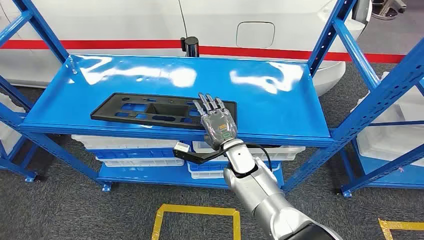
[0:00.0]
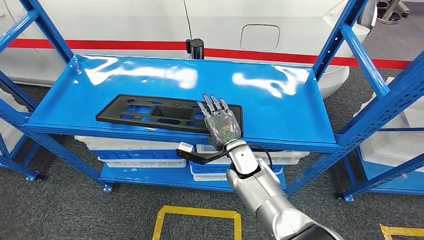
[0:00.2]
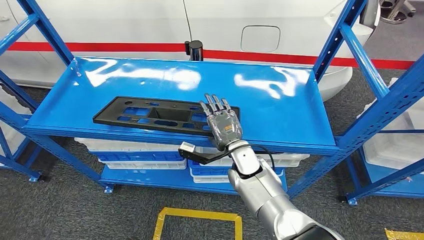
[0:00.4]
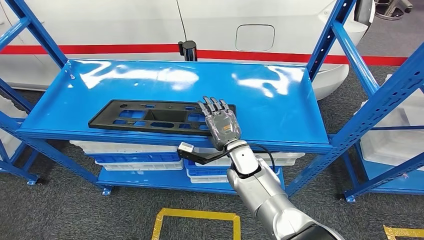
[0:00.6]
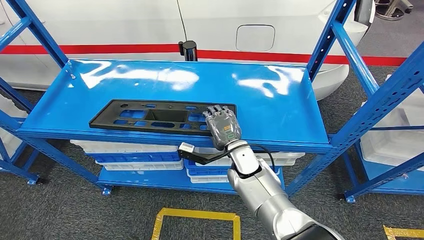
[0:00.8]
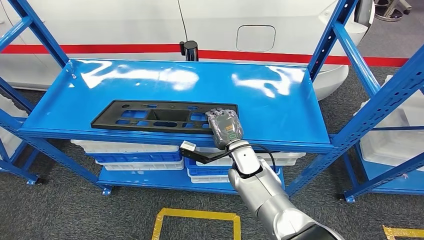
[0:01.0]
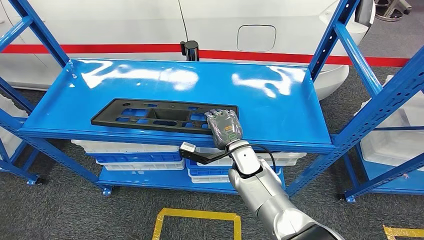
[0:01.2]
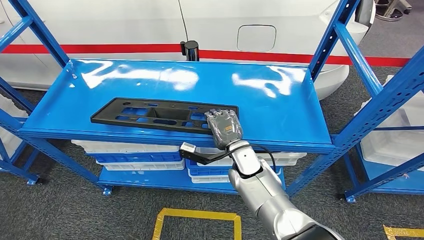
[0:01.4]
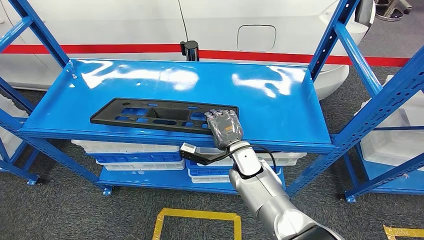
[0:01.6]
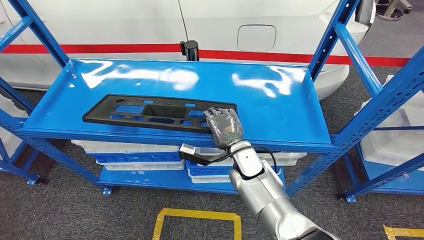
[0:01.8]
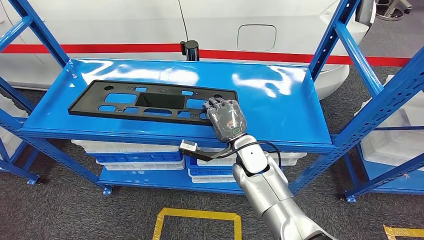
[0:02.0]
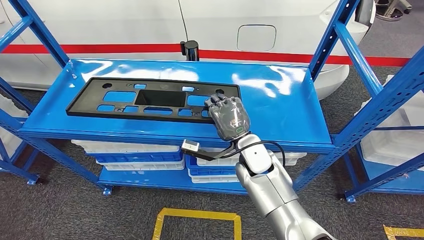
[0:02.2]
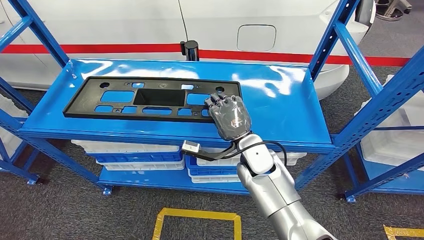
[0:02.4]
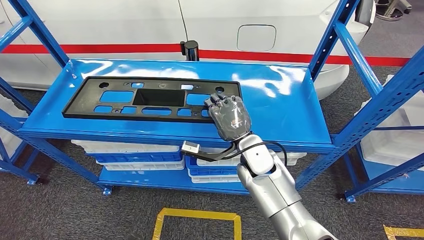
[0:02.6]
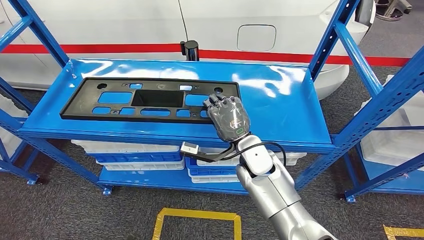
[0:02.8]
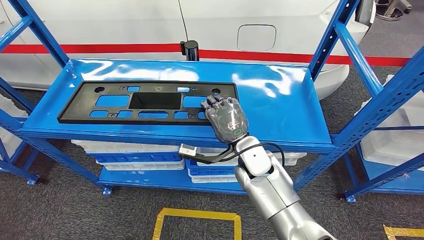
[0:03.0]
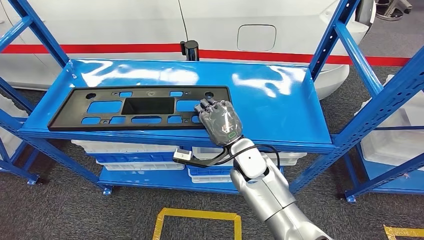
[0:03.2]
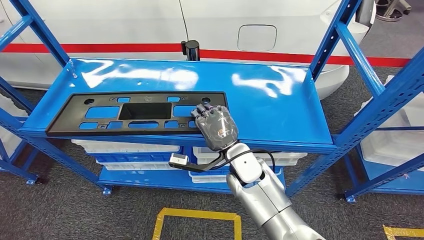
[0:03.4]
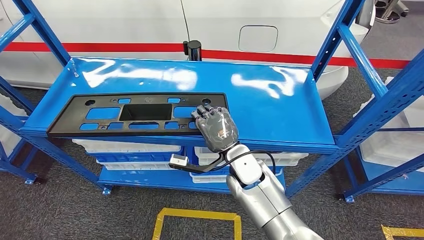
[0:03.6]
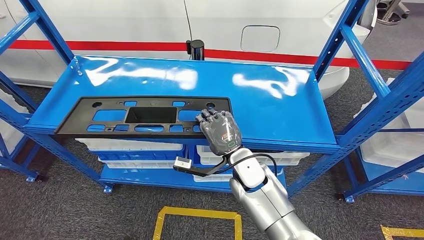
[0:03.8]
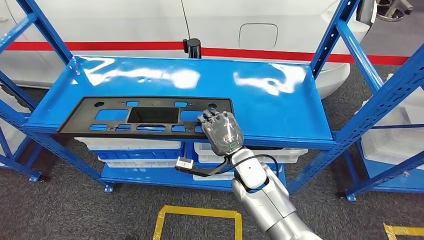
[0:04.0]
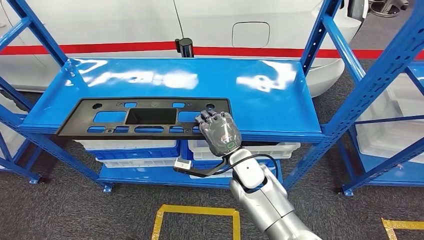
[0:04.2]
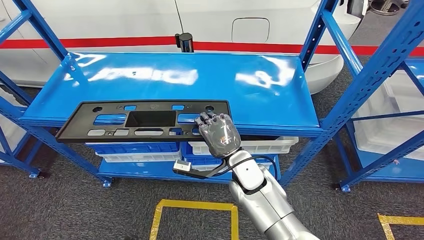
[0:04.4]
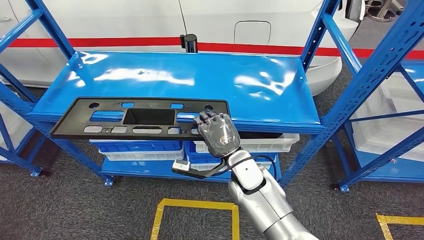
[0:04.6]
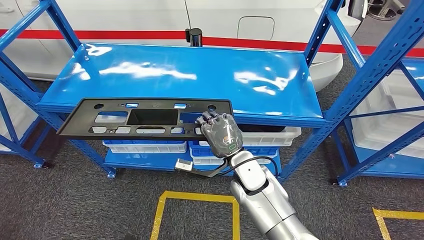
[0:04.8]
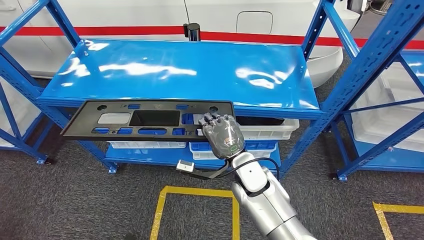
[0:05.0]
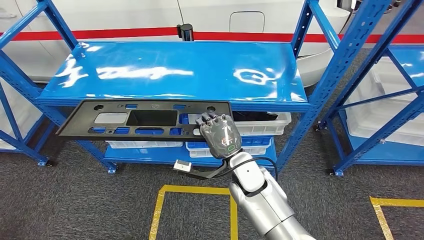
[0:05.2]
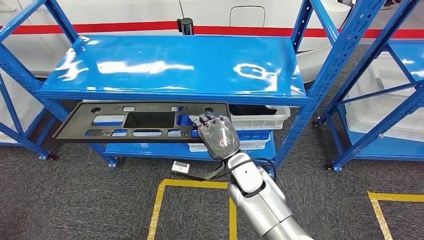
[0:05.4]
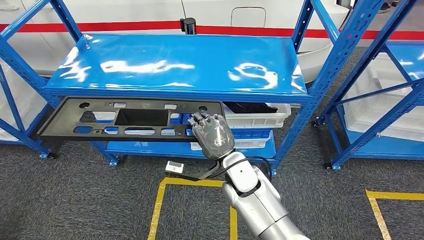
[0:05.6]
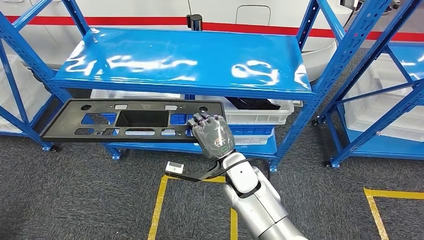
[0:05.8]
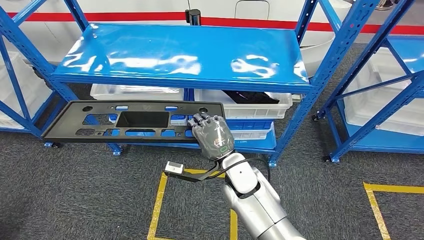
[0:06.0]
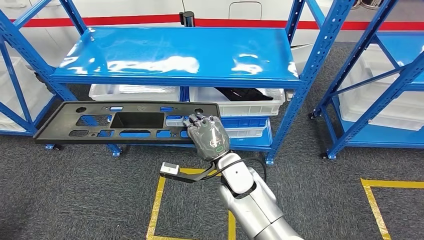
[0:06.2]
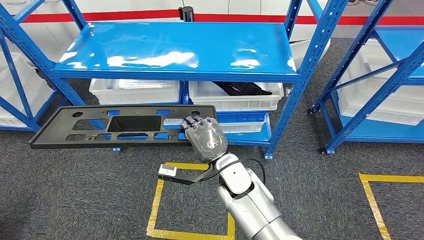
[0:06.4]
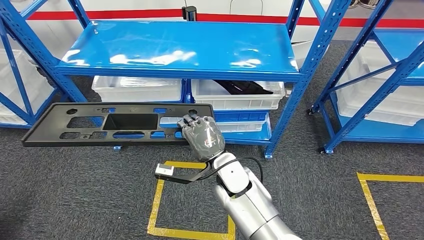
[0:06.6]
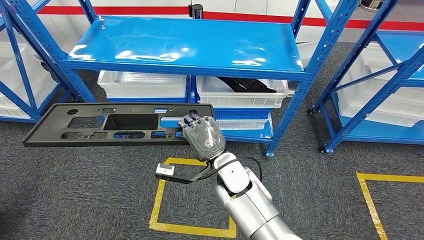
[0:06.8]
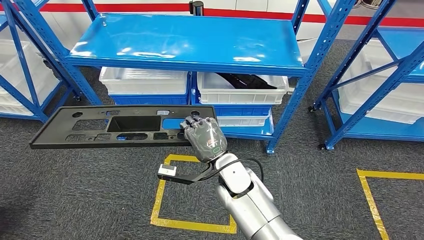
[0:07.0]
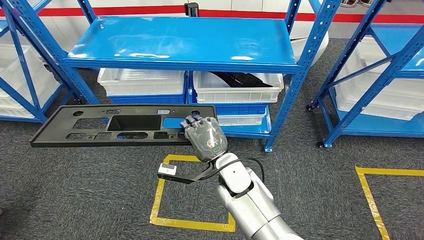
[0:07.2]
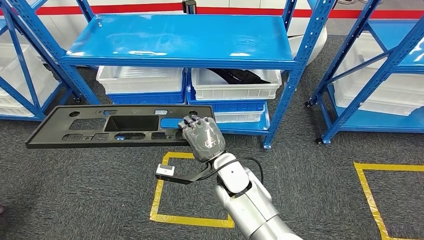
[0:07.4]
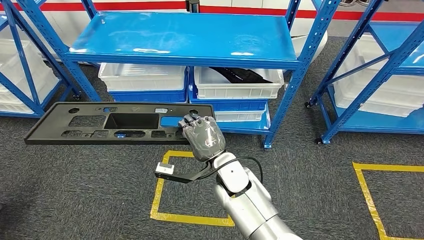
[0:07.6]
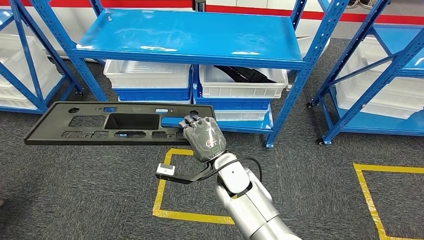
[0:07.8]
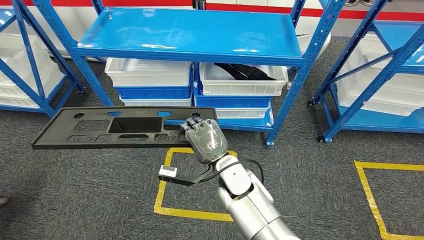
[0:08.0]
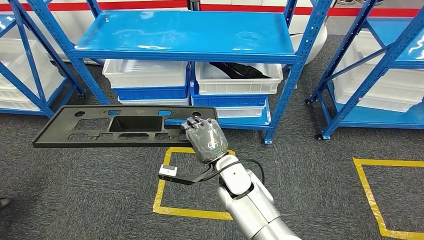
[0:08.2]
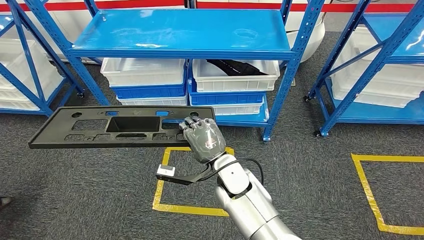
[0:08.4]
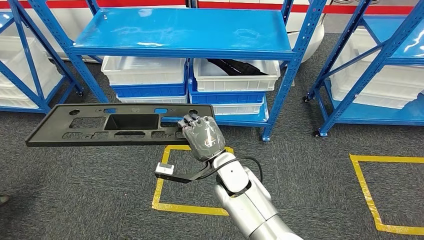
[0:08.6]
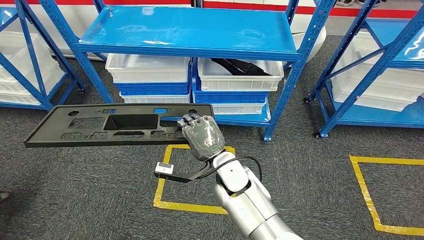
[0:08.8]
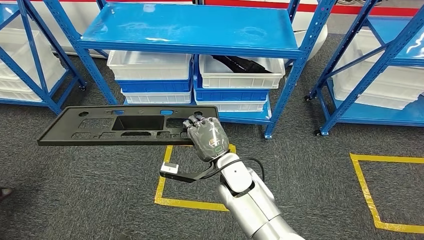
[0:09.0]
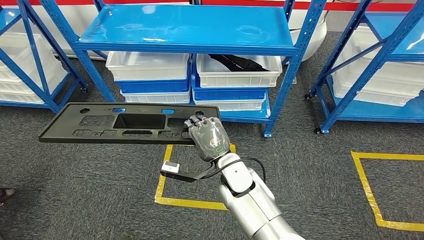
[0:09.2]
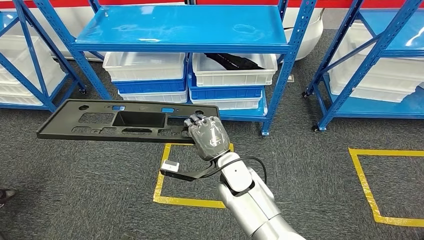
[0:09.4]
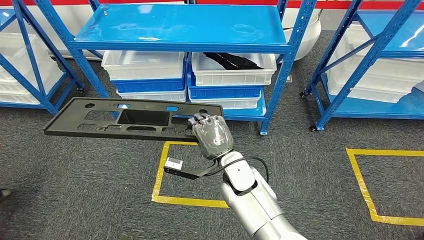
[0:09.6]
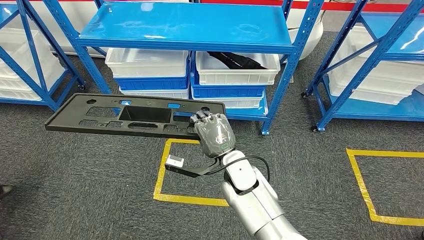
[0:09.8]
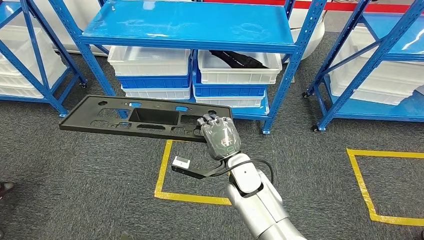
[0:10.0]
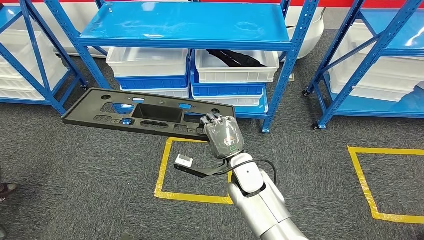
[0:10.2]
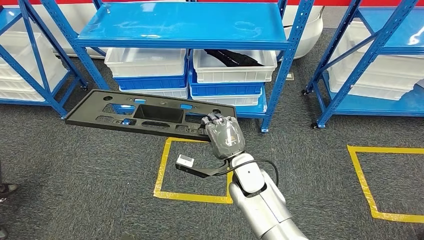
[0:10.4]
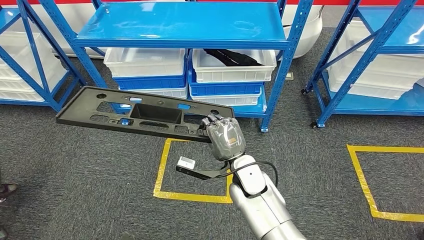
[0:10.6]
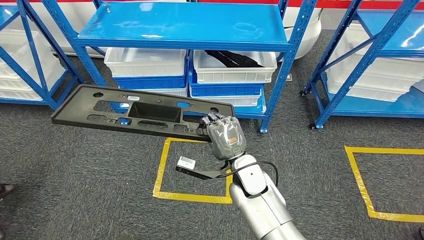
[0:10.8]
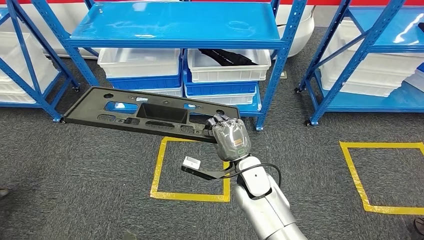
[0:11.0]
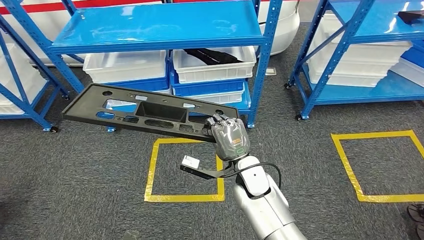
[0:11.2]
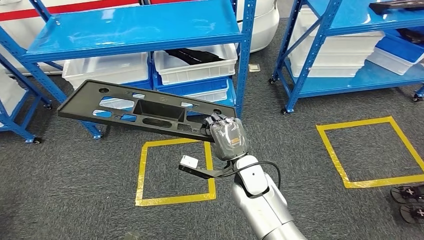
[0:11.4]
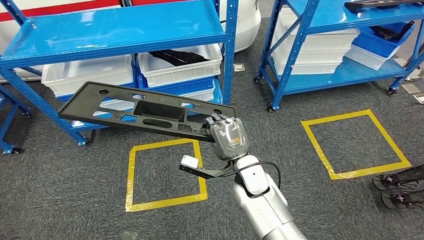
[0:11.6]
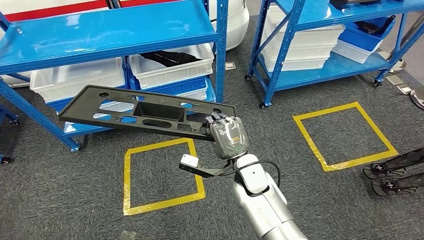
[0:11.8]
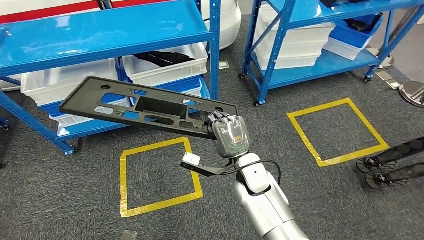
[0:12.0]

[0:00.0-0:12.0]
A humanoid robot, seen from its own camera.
Step, 0:00.0 to 0:06.4: Pick up the large material from the shelf.
0:01.6 to 0:03.0: The right hand moves upward, roughly 5 cm.

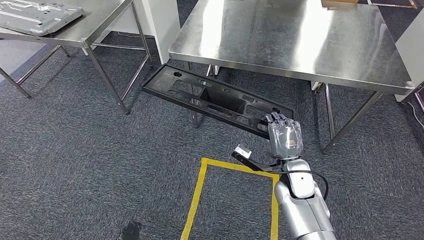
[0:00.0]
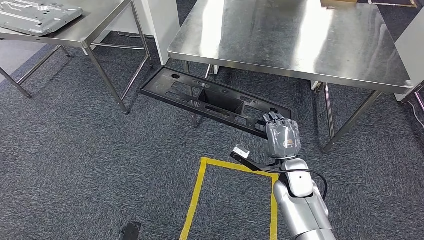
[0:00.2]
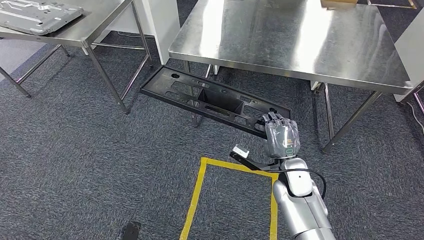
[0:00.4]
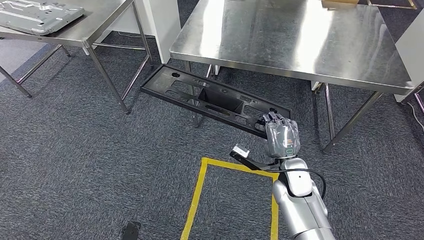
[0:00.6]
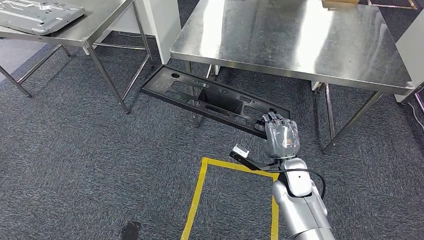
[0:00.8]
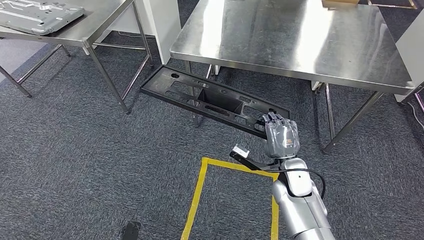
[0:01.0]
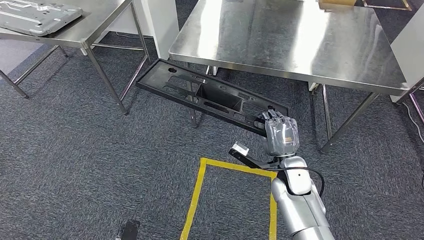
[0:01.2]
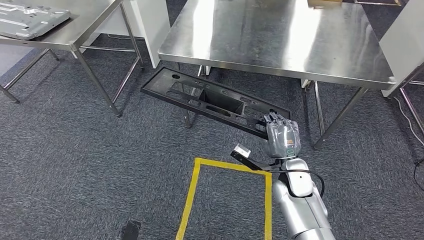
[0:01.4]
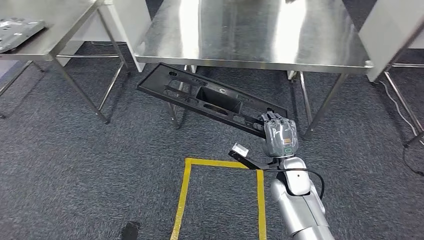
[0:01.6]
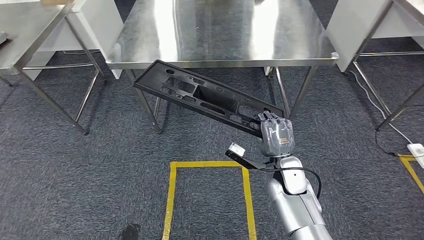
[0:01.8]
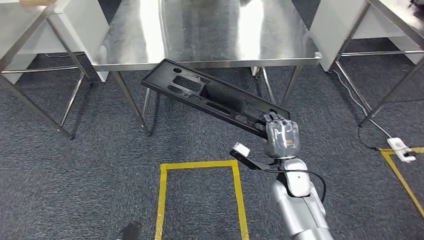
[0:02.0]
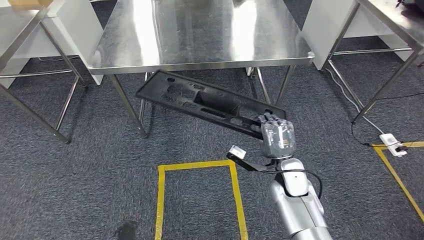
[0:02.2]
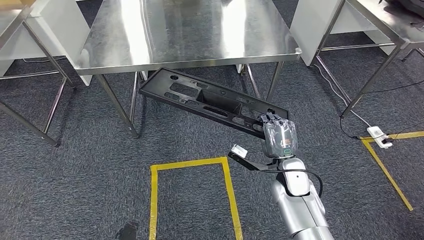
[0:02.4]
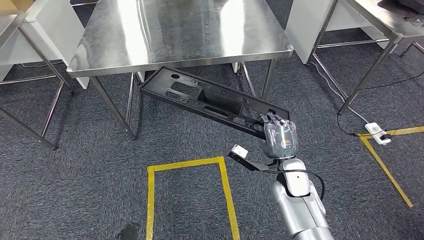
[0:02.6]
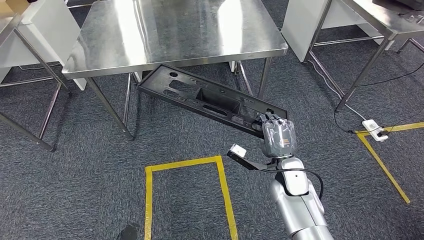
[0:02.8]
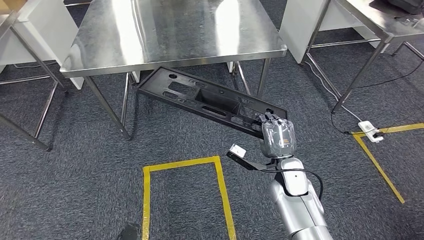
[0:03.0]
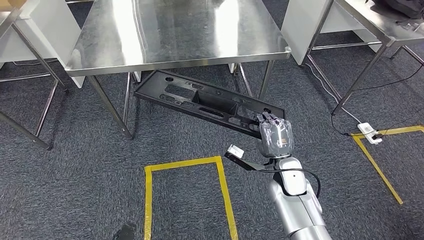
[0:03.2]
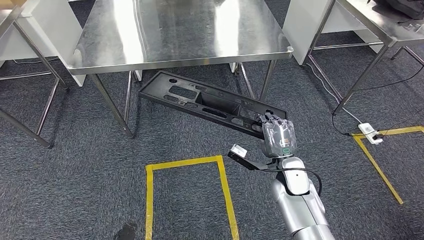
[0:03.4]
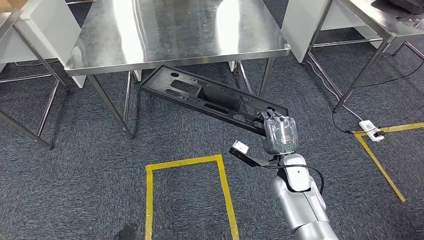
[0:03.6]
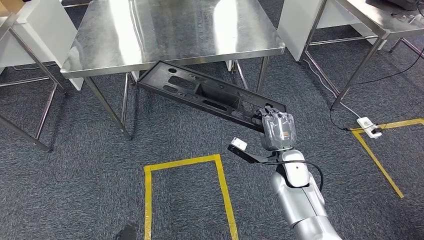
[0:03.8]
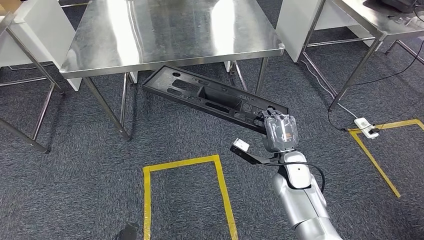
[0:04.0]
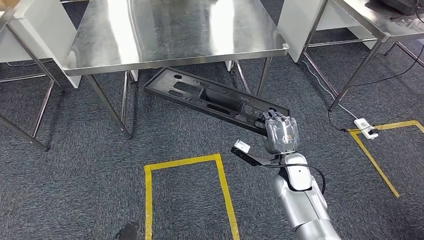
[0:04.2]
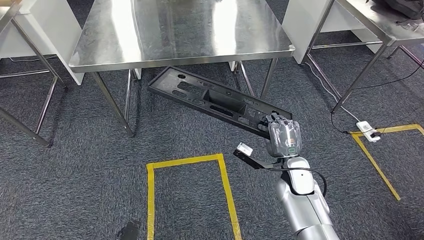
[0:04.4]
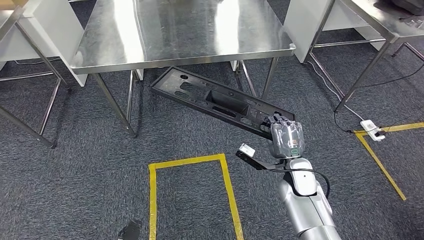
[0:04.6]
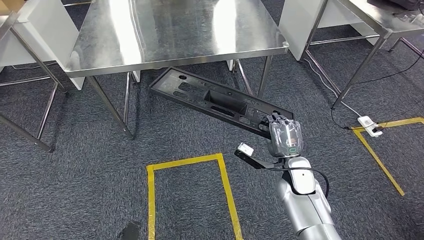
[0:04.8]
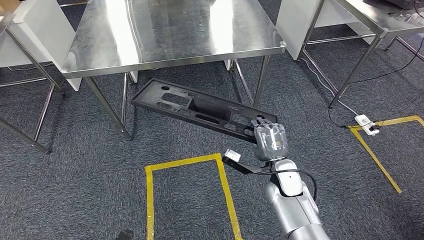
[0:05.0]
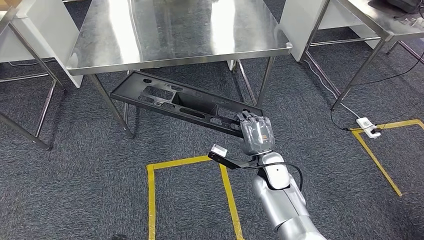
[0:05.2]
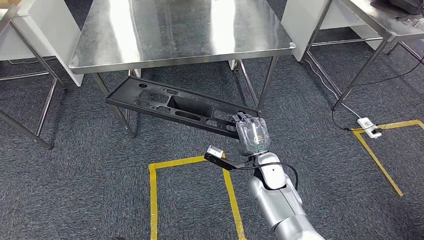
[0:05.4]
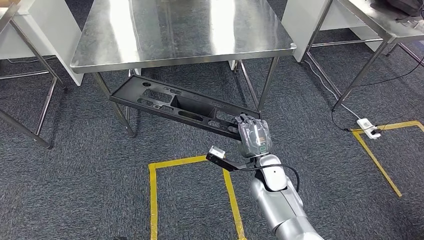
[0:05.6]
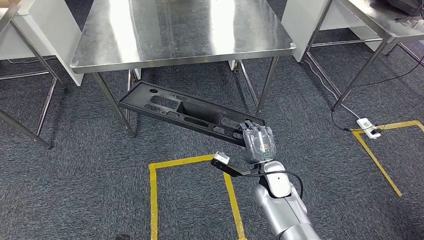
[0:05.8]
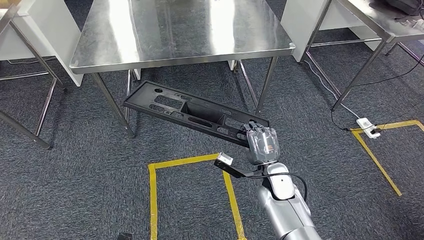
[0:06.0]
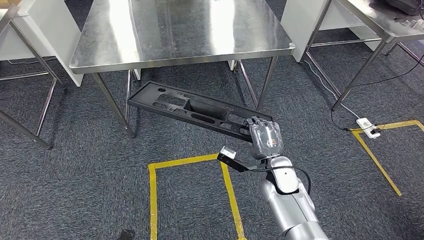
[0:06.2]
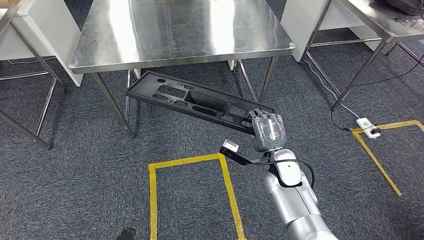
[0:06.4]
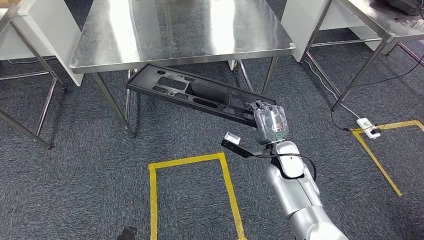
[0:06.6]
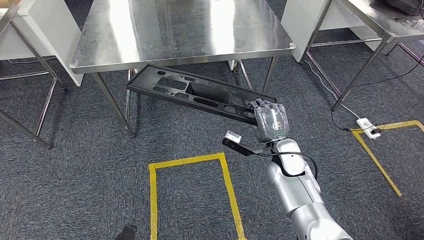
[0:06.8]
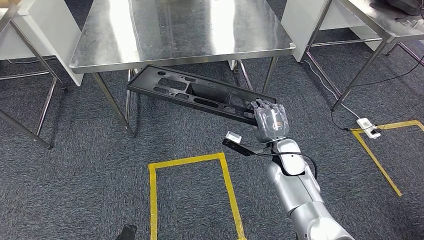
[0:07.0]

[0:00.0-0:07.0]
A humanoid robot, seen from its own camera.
0:05.6 to 0:07.0: The right hand shifts by roughly 5 cm.
